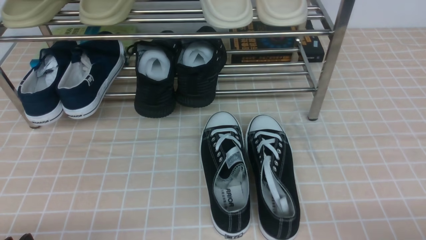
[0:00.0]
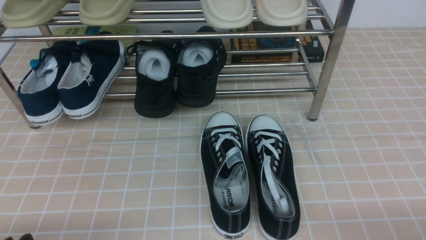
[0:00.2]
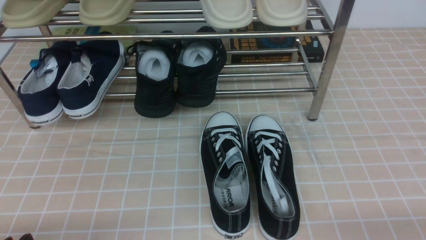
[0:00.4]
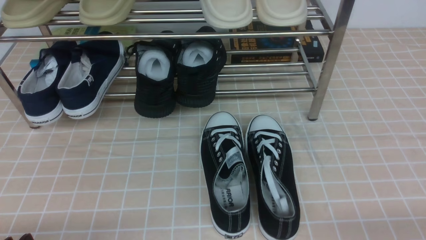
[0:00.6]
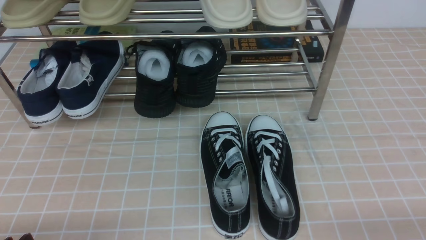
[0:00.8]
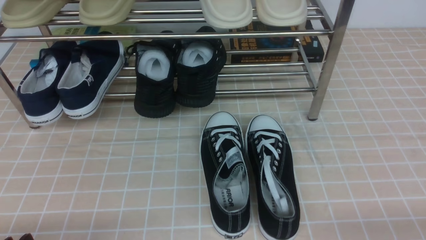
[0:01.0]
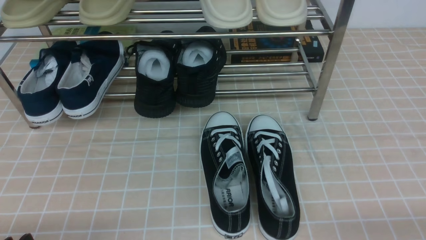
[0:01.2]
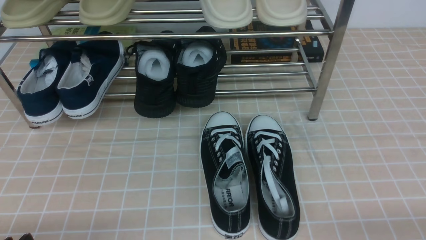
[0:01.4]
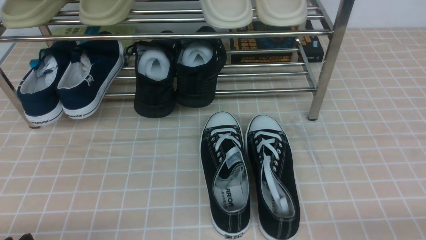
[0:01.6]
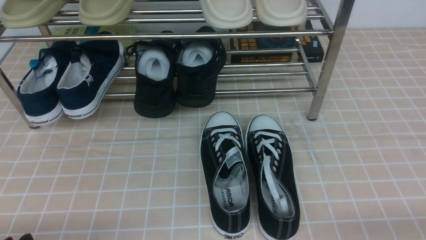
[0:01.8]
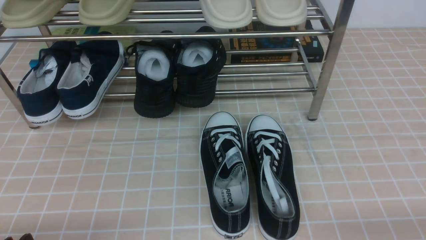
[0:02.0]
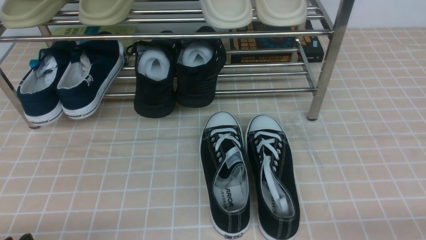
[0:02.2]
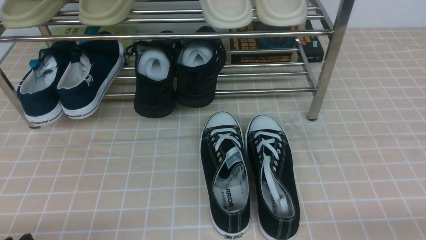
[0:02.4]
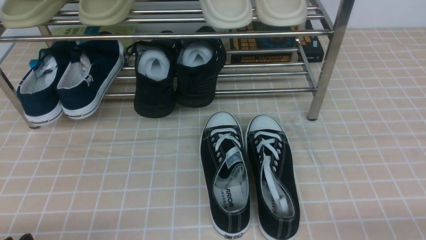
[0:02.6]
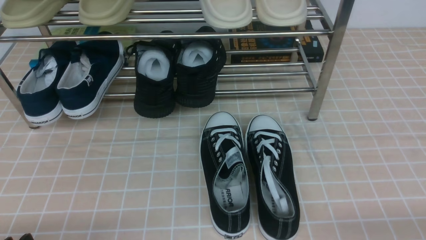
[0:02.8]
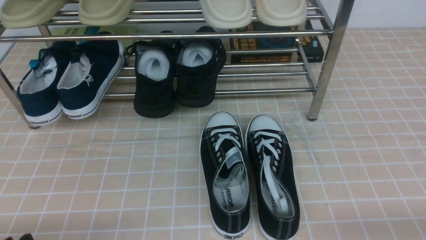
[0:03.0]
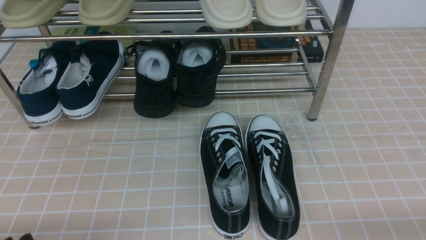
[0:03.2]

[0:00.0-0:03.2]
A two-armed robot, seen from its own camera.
0:01.6 to 0:03.2: The two grippers keep their place.

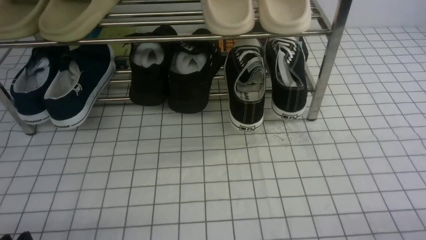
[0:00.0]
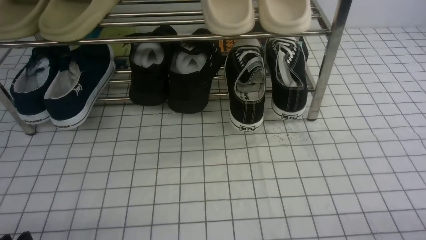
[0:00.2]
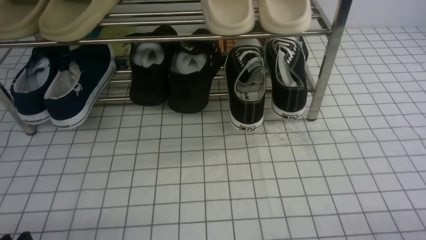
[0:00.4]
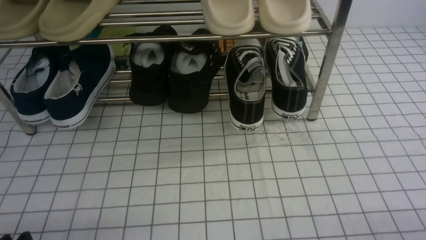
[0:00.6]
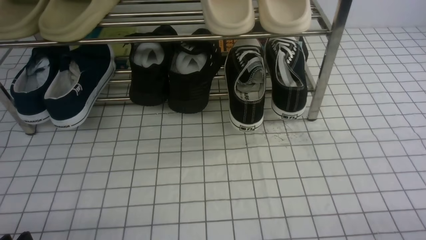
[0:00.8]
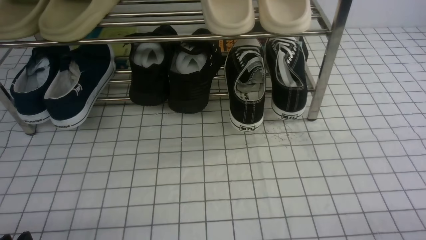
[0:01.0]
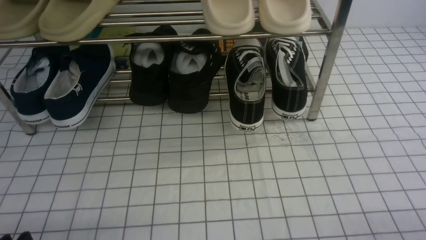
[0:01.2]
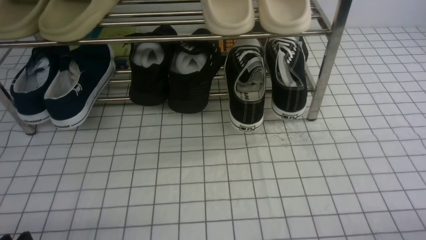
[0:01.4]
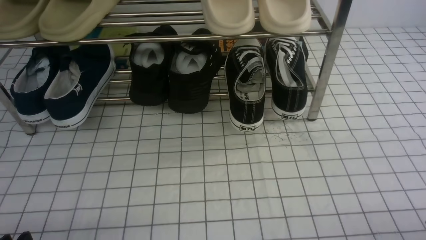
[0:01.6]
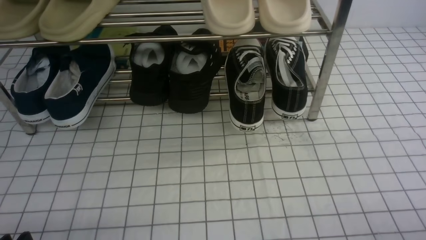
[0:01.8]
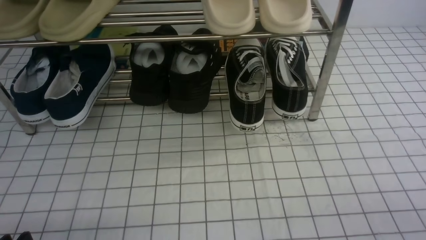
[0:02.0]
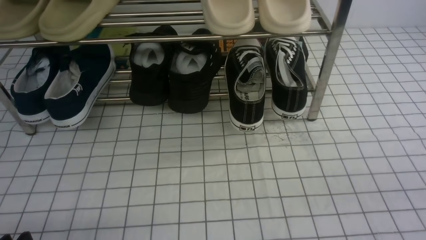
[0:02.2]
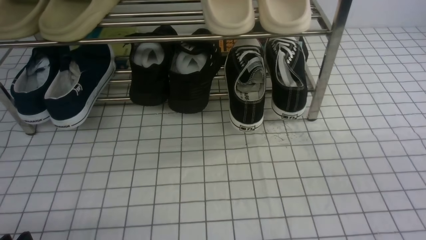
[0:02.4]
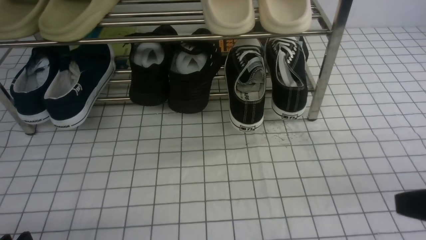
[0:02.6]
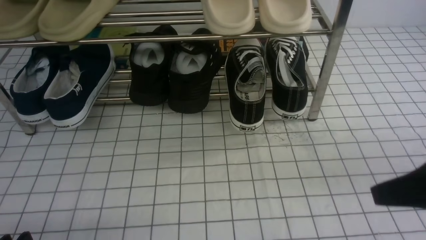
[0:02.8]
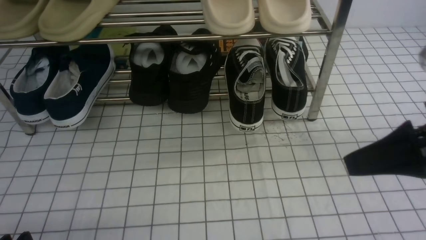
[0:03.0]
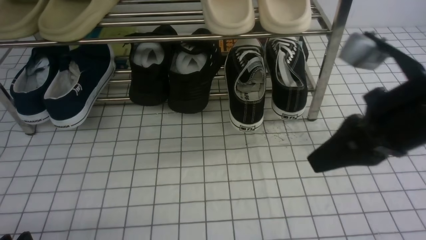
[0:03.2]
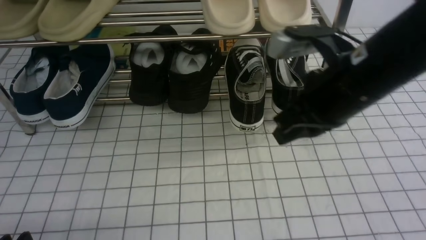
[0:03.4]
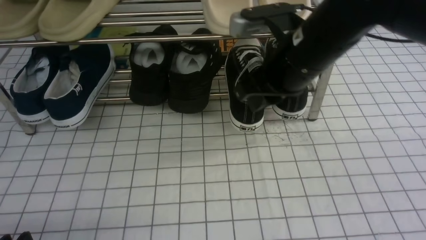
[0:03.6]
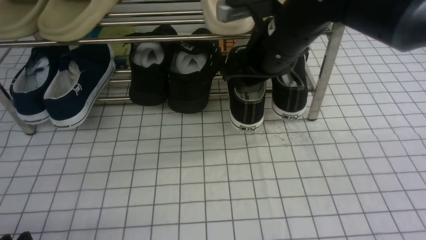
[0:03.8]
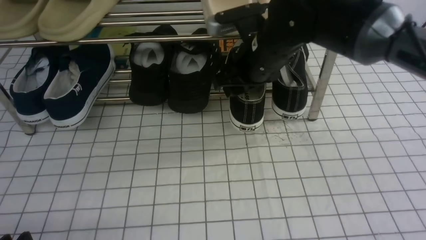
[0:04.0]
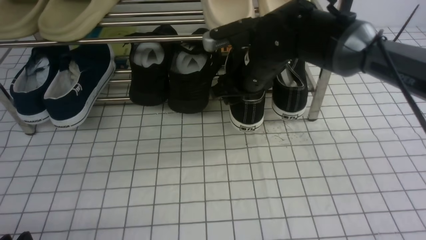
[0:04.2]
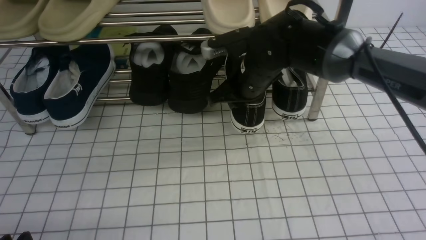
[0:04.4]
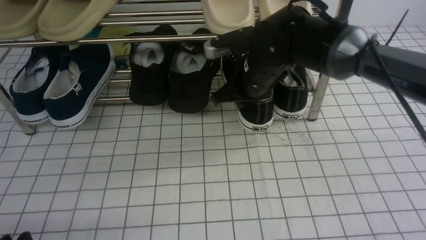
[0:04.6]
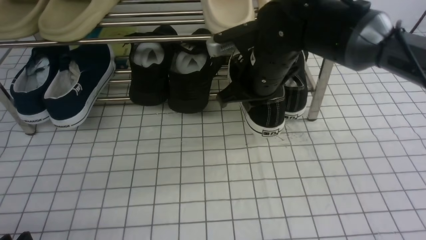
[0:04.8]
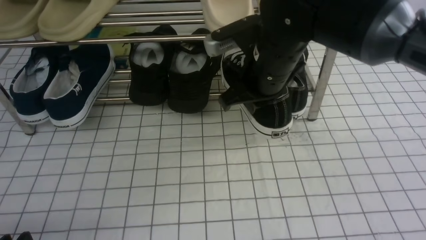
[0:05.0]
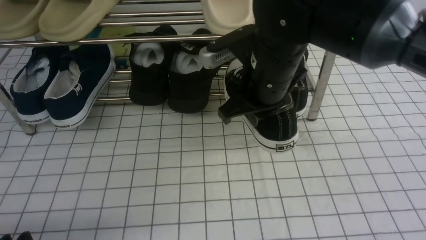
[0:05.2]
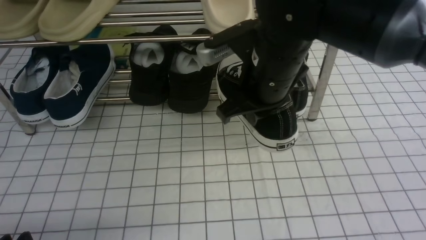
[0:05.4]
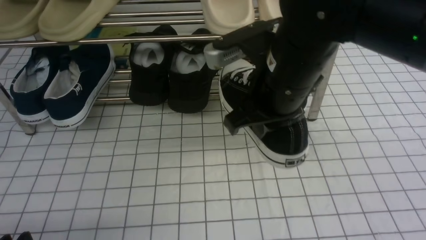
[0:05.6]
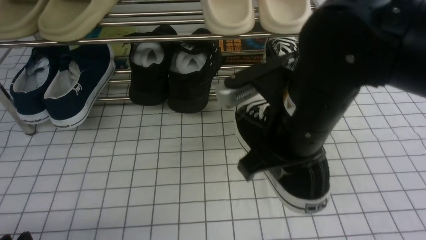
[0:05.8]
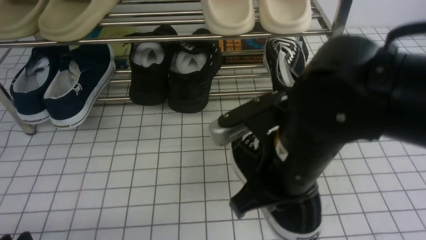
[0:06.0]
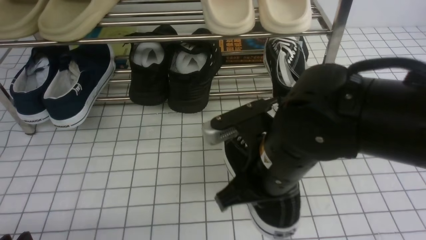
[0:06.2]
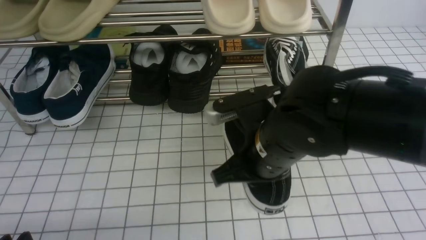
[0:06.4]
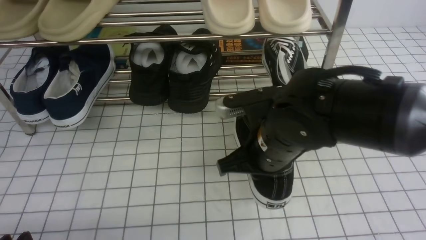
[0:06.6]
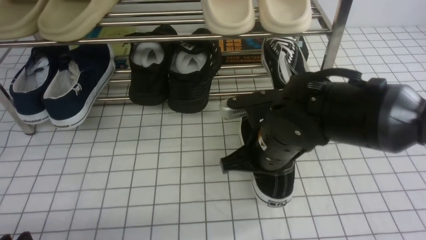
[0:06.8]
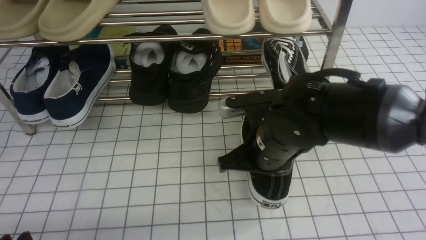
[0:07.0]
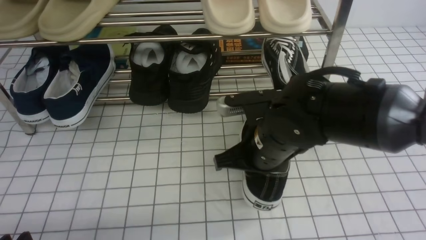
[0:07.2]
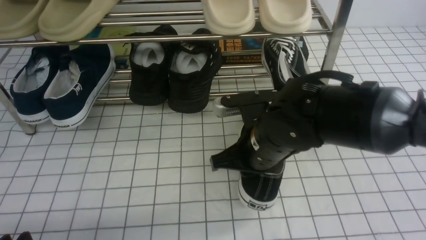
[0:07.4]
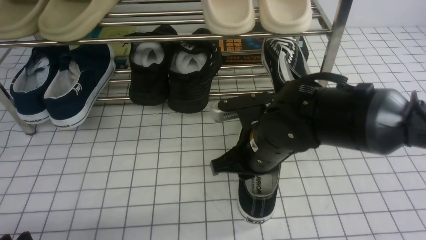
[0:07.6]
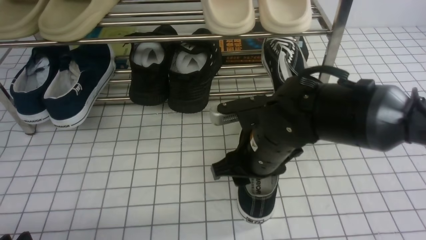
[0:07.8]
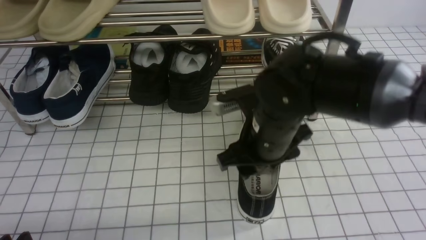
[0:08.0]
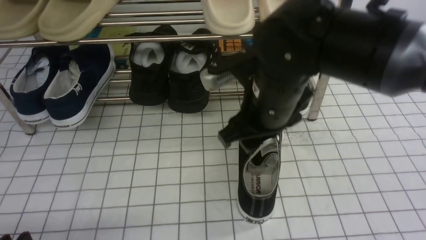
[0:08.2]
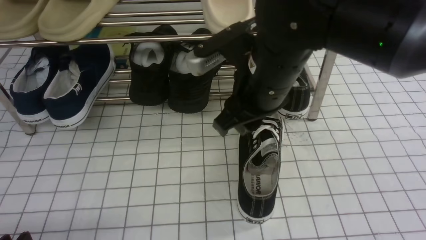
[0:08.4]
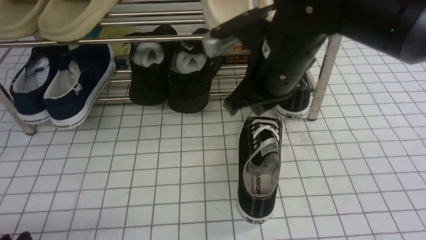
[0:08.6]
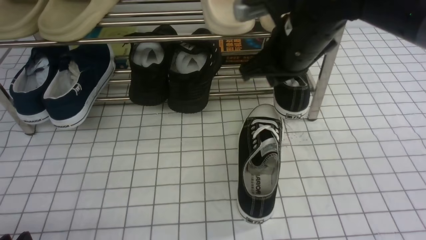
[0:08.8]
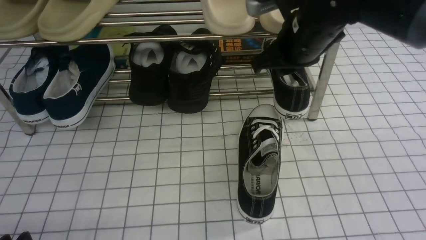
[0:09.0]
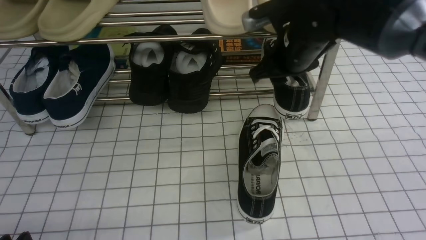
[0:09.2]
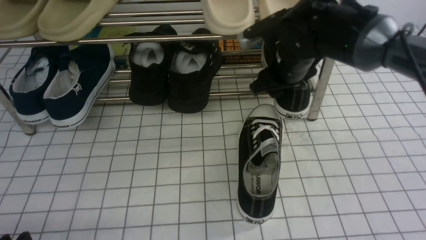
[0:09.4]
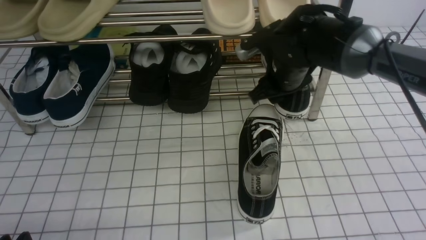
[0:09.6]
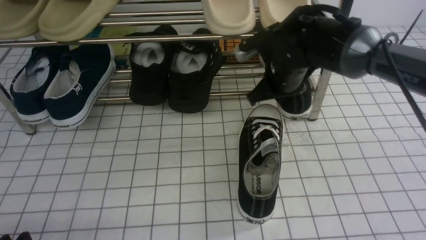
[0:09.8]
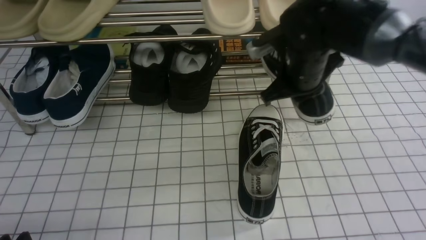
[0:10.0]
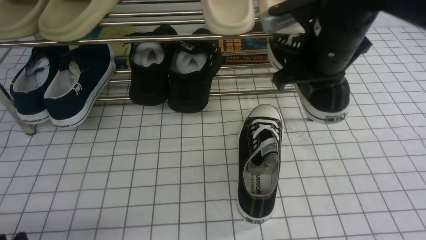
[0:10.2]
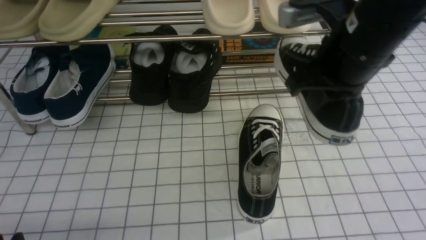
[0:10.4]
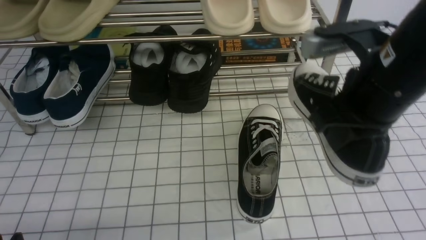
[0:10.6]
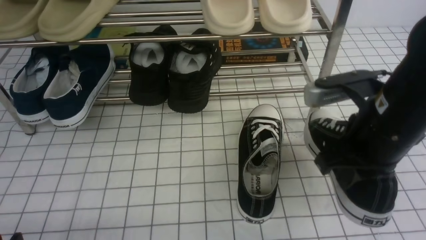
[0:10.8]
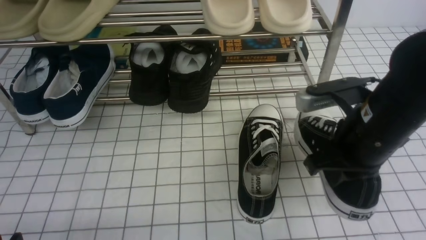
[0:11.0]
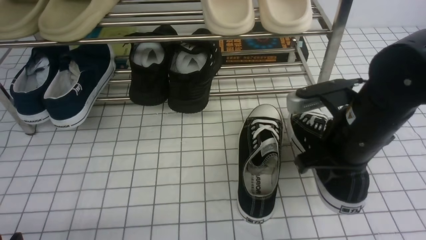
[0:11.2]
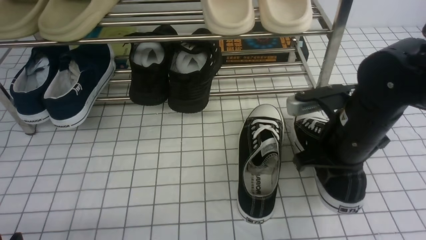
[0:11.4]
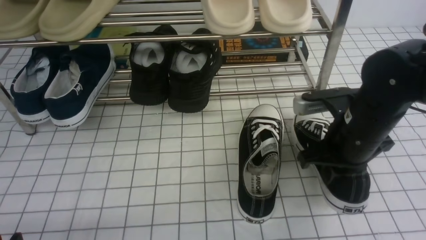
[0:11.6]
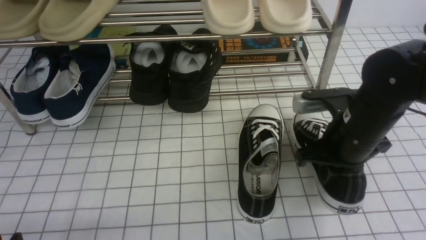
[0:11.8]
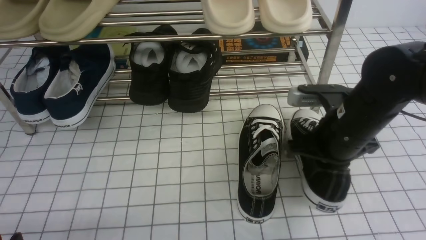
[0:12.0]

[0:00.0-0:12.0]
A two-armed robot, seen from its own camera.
Step, 0:00.0 to 0:04.4: use the right arm to clamp a shoe on the right side of the shoe rack.
Step, 0:04.6 to 0:08.0: use the right arm to take out the clamped shoe from the shoe rack and put it down.
Step, 0:08.2 to 0:09.6: use the right arm to clamp a shoe on the right side of the shoe rack.
0:01.6 to 0:03.0: The right gripper shifts some 20 cm upward, forward and to the left, and closes up.
0:03.0 to 0:04.4: The right gripper shifts approximately 30 cm forward and to the left, and opens its fingers.
0:04.4 to 0:06.0: The right gripper is displaced backward by about 20 cm, and closes its fingers.
0:06.0 to 0:07.6: The right gripper moves downward and forward, approximately 10 cm, and opens.
0:07.6 to 0:09.0: The right gripper goes roughly 15 cm upward, forward and to the right, and opens and closes again.
0:09.0 to 0:10.4: The right gripper goes approximately 5 cm backward, and opens, then closes again.
0:10.4 to 0:12.0: The right gripper shifts roughly 10 cm downward.

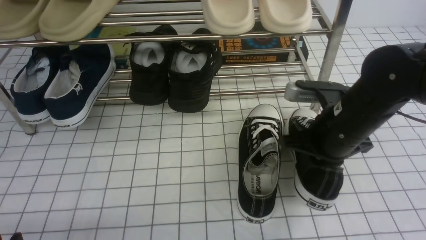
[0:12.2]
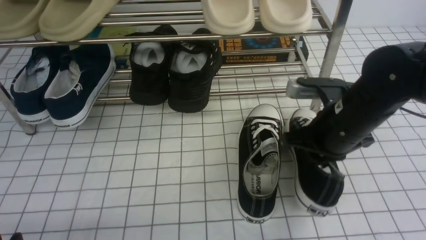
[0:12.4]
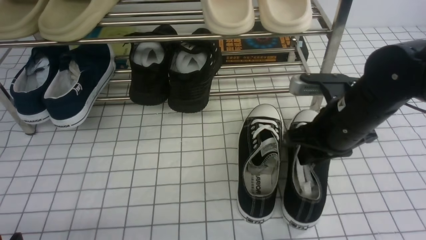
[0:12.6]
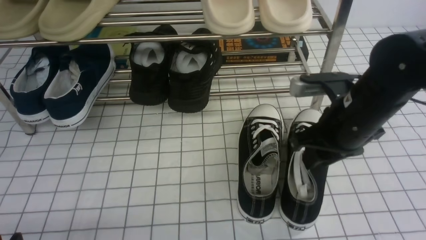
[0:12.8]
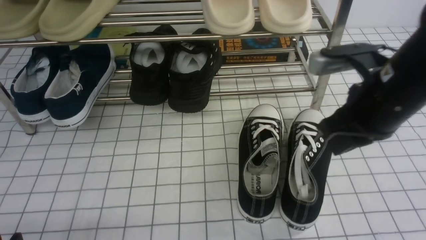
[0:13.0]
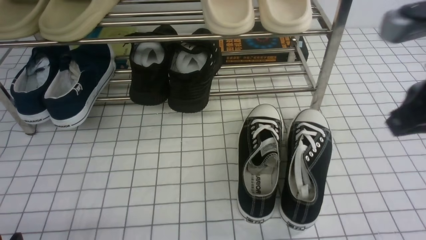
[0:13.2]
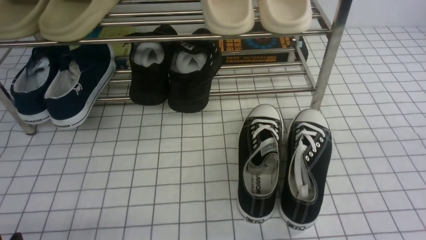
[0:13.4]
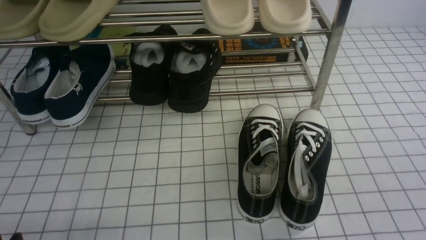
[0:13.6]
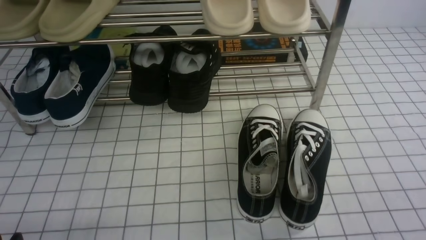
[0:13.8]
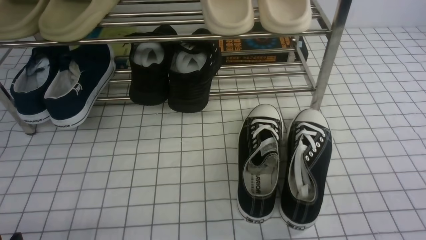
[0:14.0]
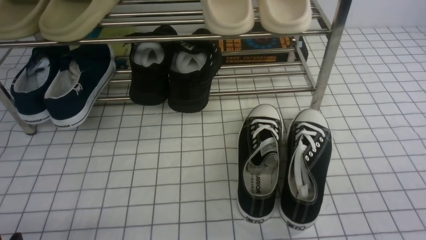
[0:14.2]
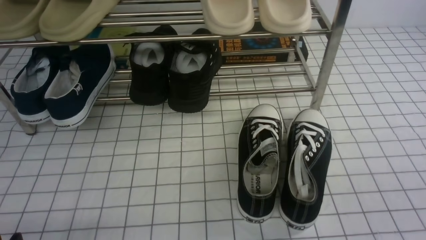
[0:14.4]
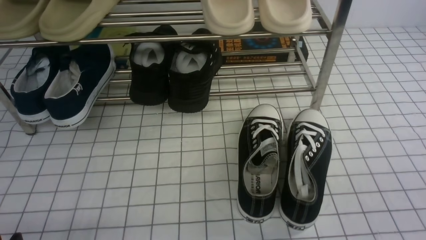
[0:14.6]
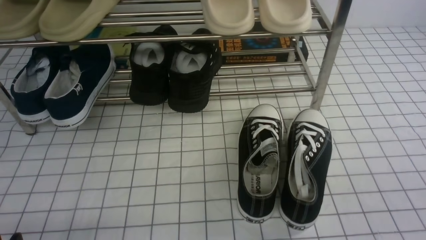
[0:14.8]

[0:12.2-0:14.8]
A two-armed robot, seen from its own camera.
0:12.2 to 0:13.4: The right gripper is displaced upward, backward and to the right by about 25 cm, and opens and closes again.
